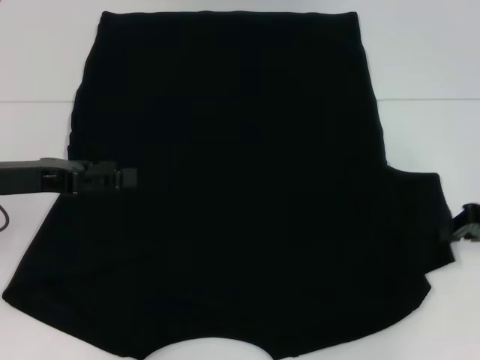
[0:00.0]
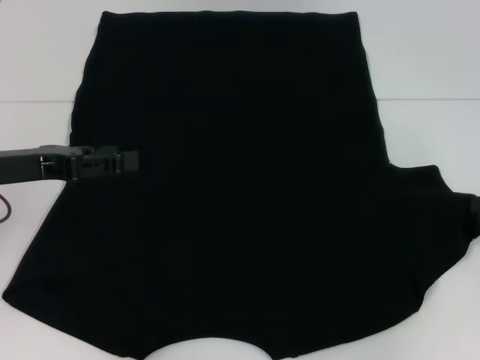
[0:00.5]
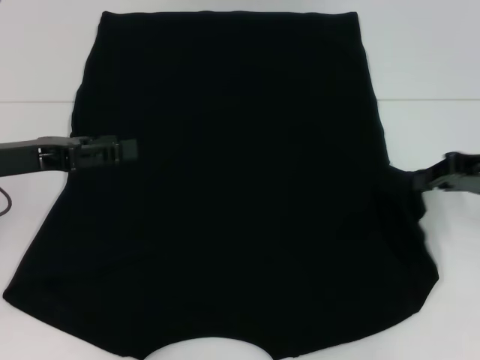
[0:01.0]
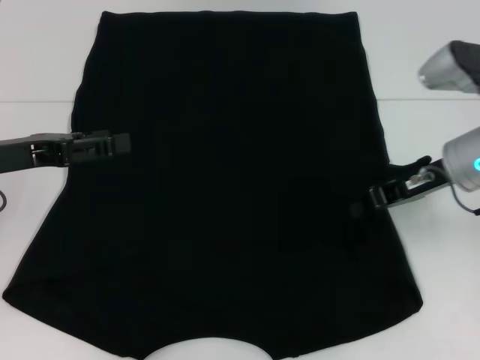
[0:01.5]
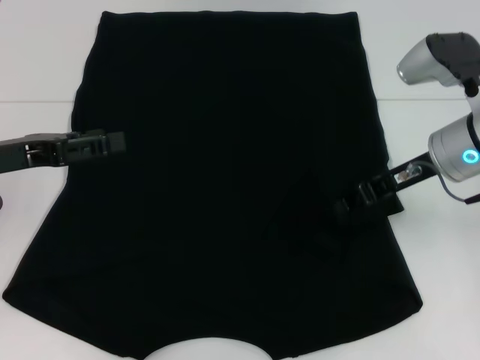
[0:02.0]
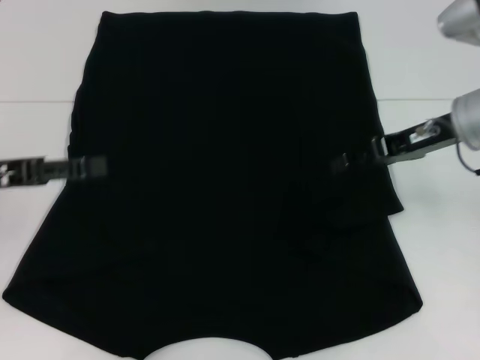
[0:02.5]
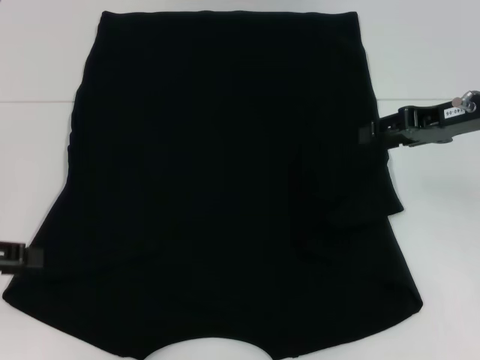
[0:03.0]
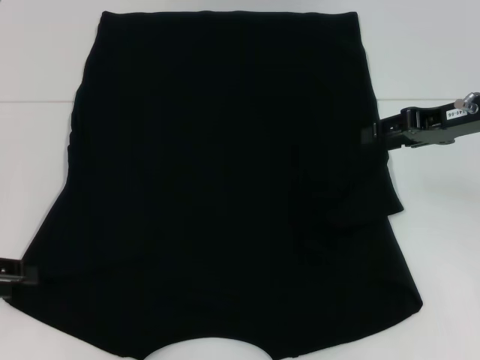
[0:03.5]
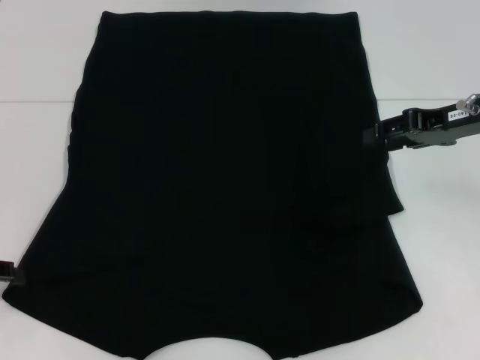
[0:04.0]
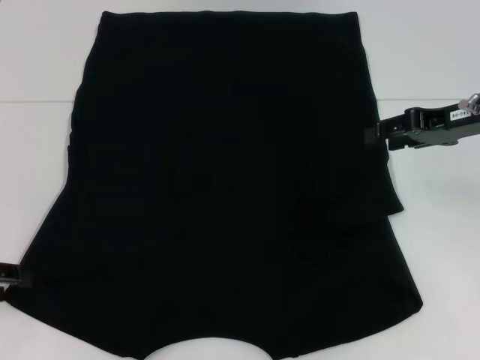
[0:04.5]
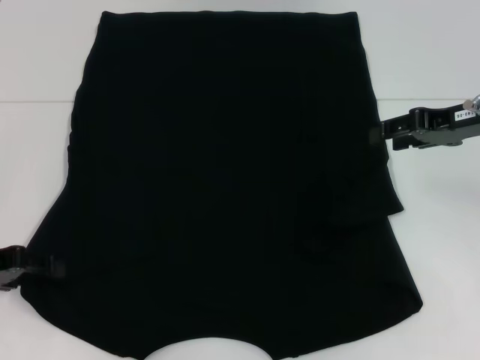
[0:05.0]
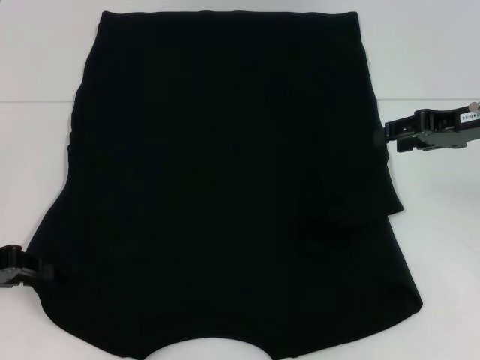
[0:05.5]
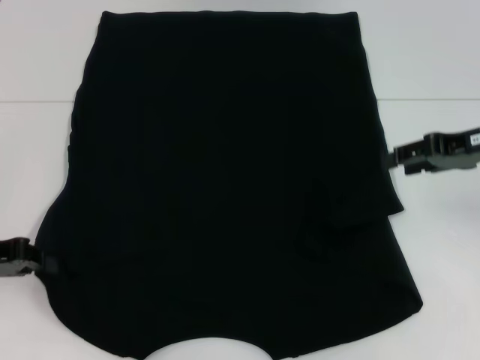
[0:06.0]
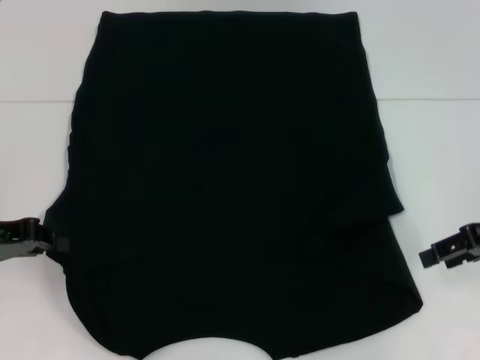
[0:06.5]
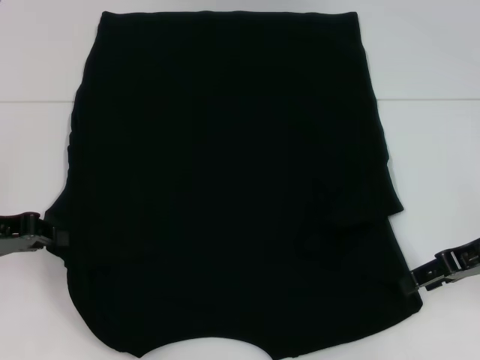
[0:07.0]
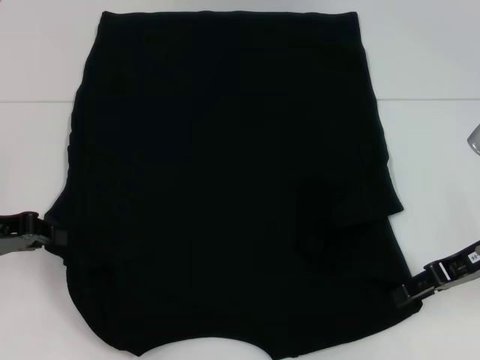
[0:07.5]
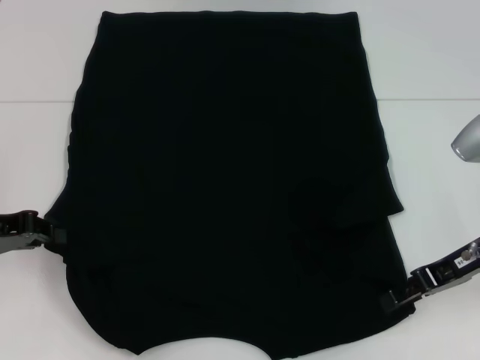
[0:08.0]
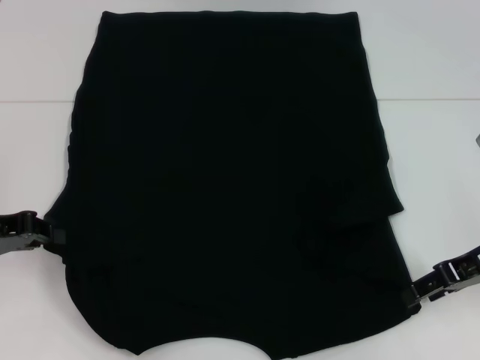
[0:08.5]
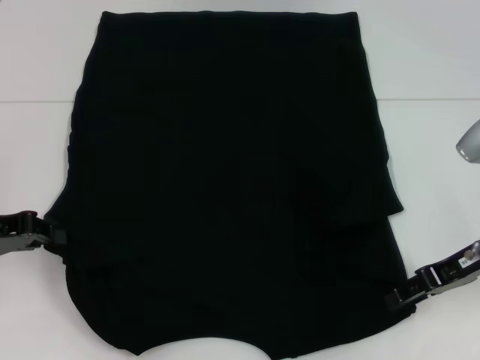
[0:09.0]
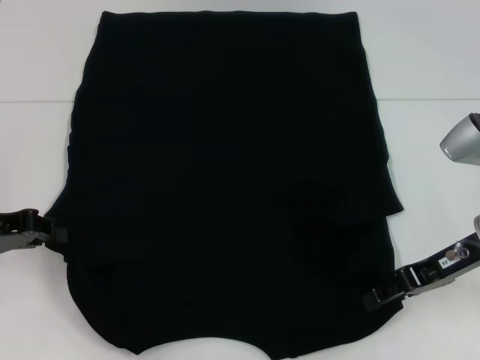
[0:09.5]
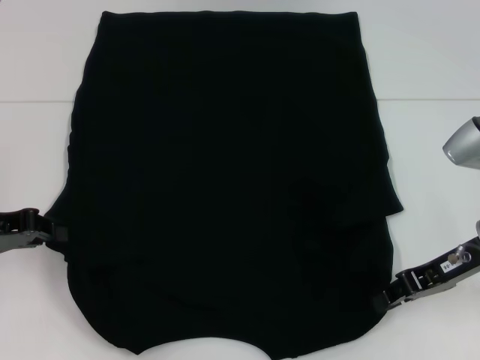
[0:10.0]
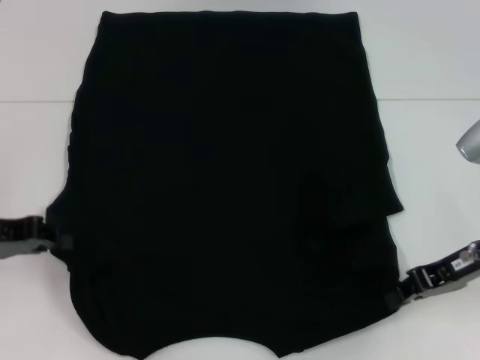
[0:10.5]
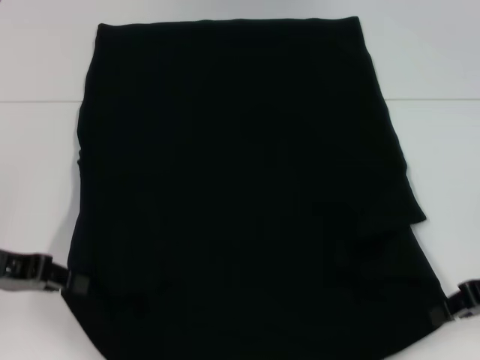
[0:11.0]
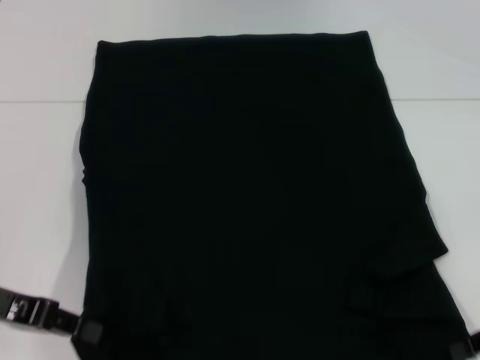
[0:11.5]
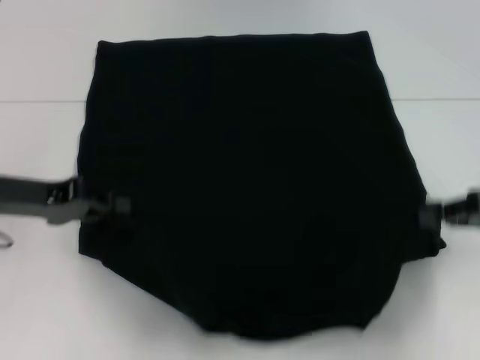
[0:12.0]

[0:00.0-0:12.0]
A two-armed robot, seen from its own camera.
Step, 0:00.0 to 0:02.0: Fold the bottom right sleeve with your right hand.
Step, 0:02.5 to 0:05.5: Grab the bottom left corner with your left hand.
Step, 0:06.0 to 0:10.5: Grab the bottom right corner with your right hand.
0:00.0 to 0:02.0: The right gripper travels to the left by roughly 10 cm.
0:02.0 to 0:04.0: The right gripper is displaced to the right by some 5 cm, and opens its fingers. The left gripper travels to the left and backward by some 10 cm.
0:04.0 to 0:06.0: The left gripper closes its fingers.
0:06.0 to 0:08.0: The right gripper moves downward and backward, roughly 10 cm.
0:08.0 to 0:10.0: The grippers make only small movements.
0:10.0 to 0:12.0: The right gripper shifts roughly 10 cm to the right, and closes its fingers. Meanwhile the left gripper moves about 5 cm.

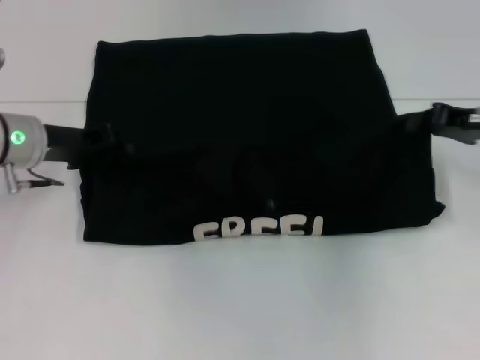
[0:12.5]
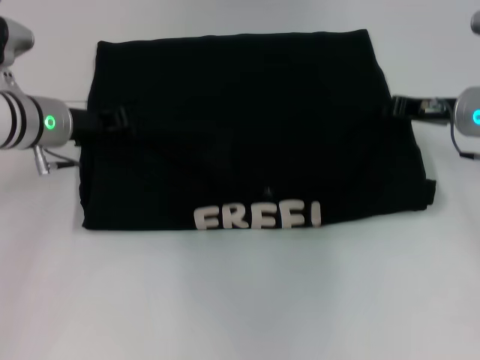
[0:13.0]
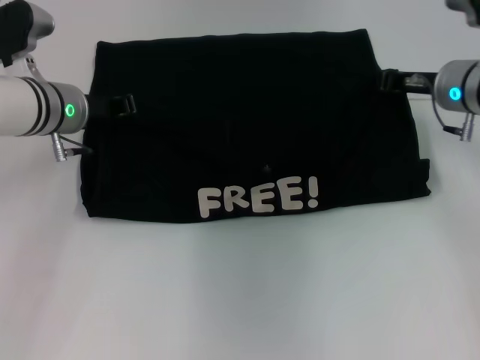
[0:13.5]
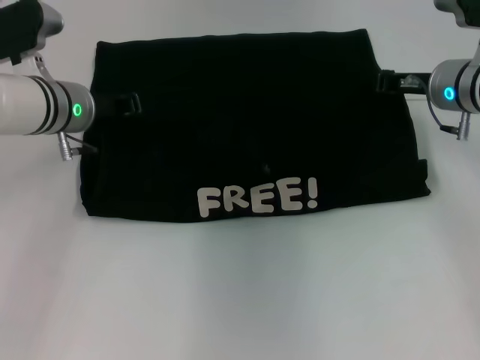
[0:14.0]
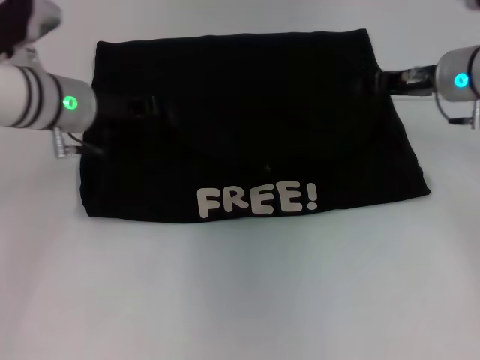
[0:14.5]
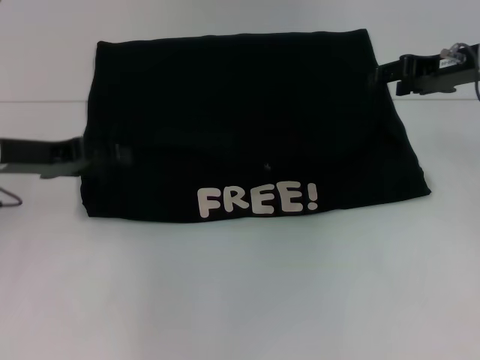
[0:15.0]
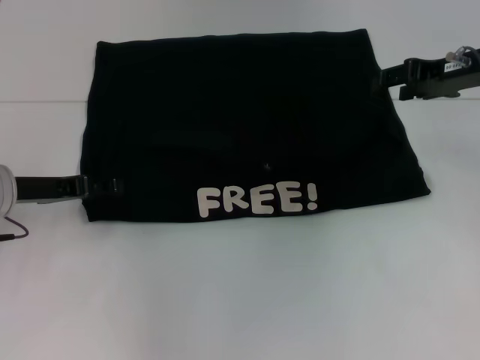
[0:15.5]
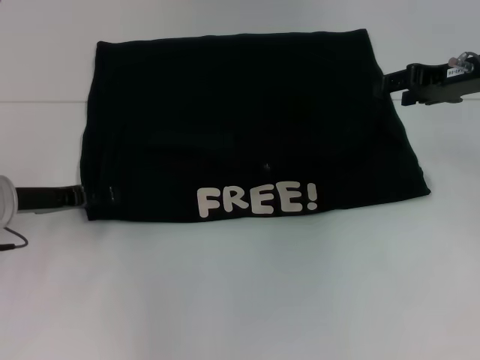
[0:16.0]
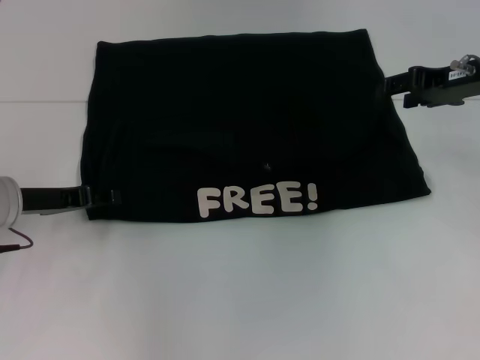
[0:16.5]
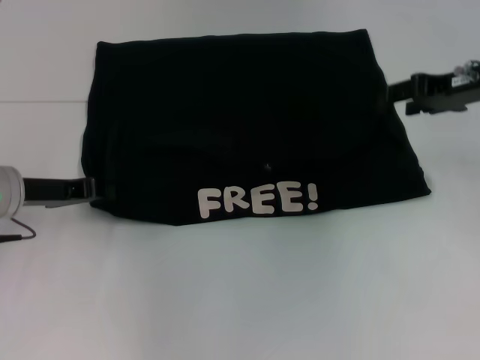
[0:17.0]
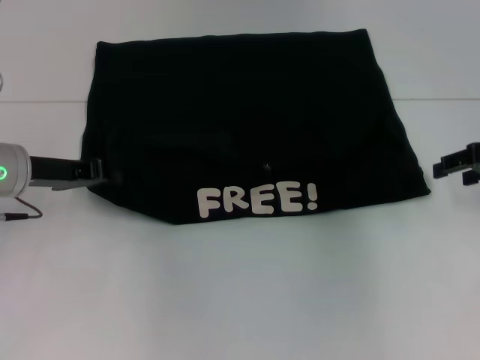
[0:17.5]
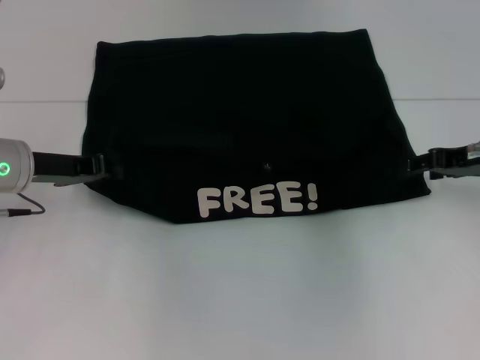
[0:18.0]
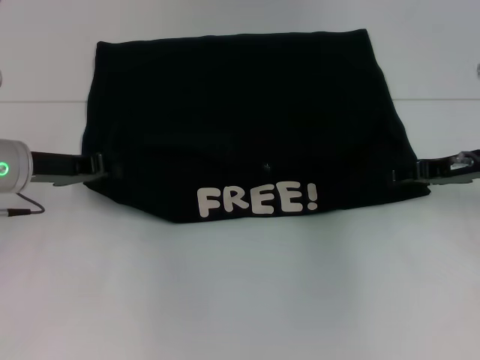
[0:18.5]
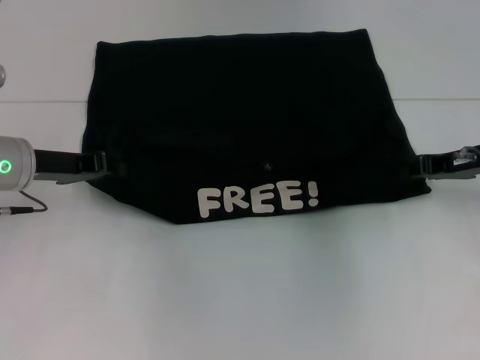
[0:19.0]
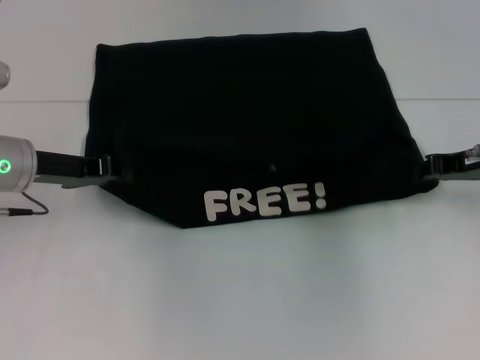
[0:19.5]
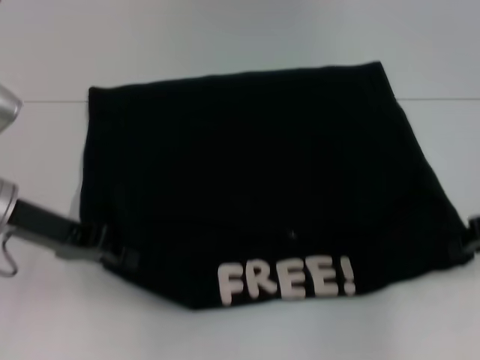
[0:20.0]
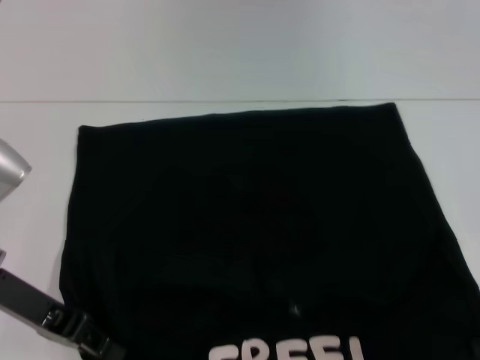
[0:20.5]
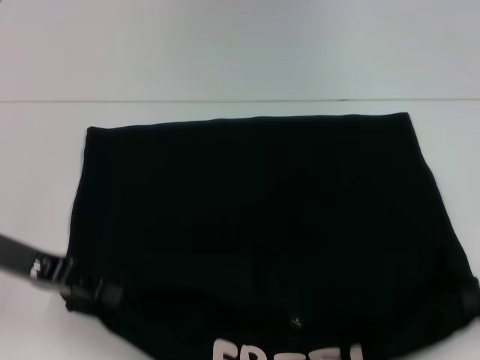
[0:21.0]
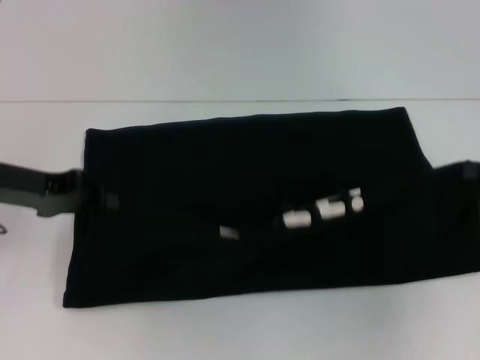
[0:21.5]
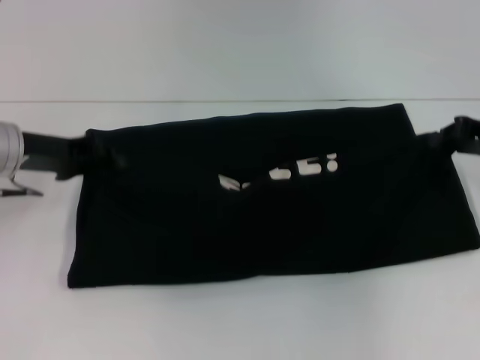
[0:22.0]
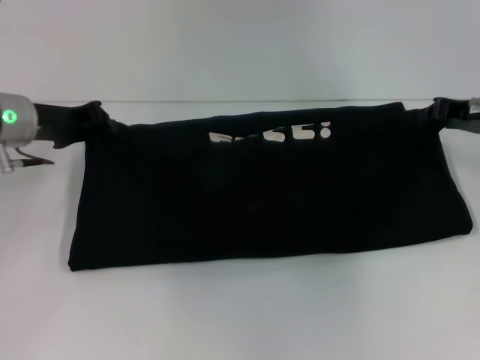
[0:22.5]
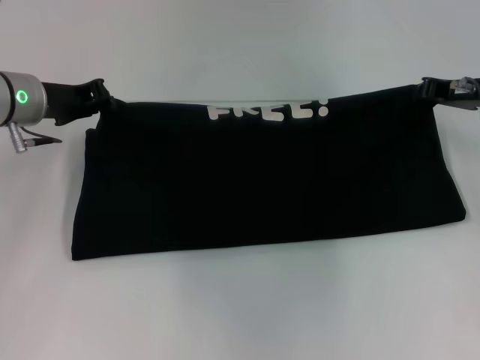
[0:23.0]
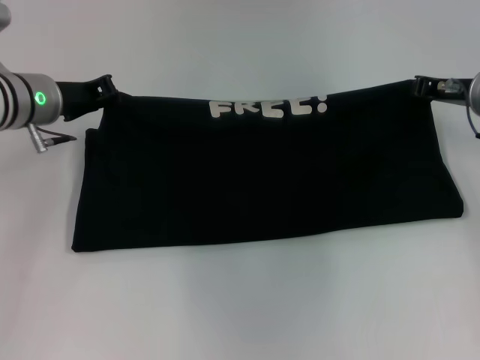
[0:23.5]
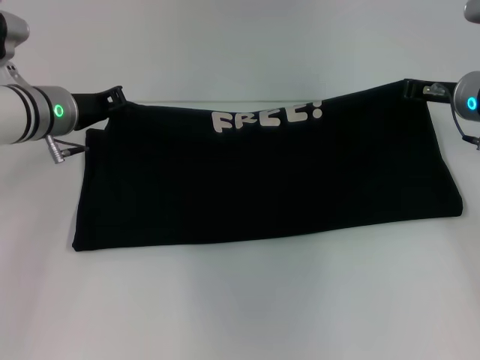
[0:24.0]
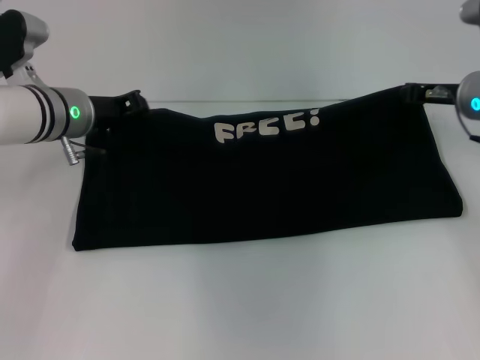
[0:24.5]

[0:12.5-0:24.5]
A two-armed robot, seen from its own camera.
Step, 0:12.5 to 0:14.5: Fold the clothes with your left hand.
Step, 0:12.5 to 0:14.5: Fold the clothes with your right hand.
Step, 0:15.0 to 0:20.5: Pull the clothes with your left hand.
Step, 0:15.0 to 0:20.5: Pull the clothes with your right hand.
0:12.5 to 0:14.5: The left gripper moves to the right, about 5 cm. The right gripper shifts roughly 10 cm to the left and forward.
0:14.5 to 0:16.5: The left gripper shifts some 15 cm to the left, backward and downward, and opens, while the right gripper moves about 5 cm, and opens its fingers.
0:16.5 to 0:18.5: The right gripper goes some 10 cm downward; the left gripper closes up.
0:18.5 to 0:20.5: The right gripper goes about 15 cm backward and to the right, and closes its fingers, while the left gripper moves backward, roughly 10 cm.
0:20.5 to 0:22.5: Both grippers move forward, about 15 cm.
0:22.5 to 0:24.5: The left gripper travels to the right by approximately 5 cm. The right gripper changes place by roughly 5 cm.

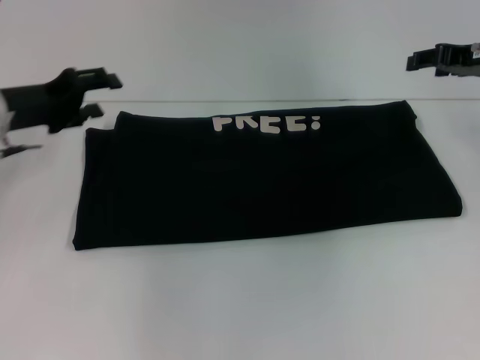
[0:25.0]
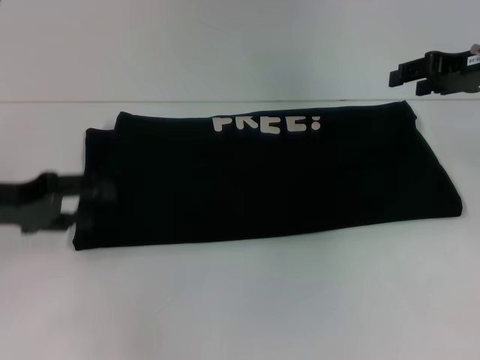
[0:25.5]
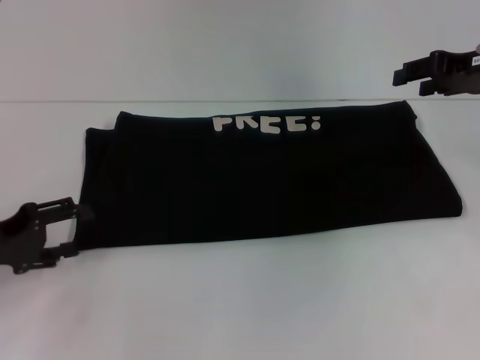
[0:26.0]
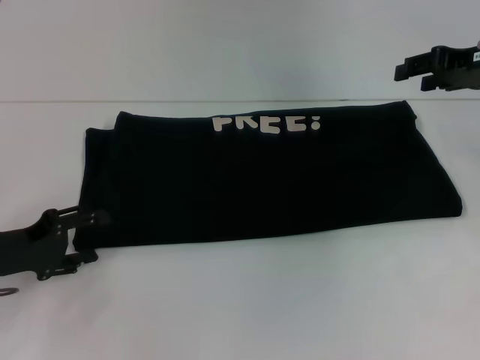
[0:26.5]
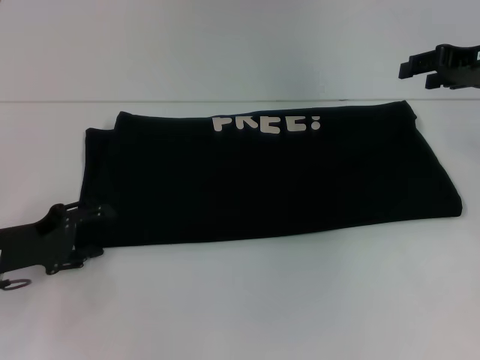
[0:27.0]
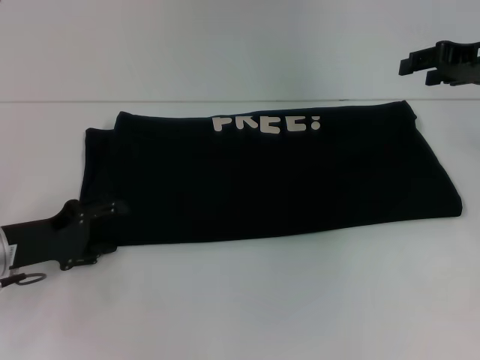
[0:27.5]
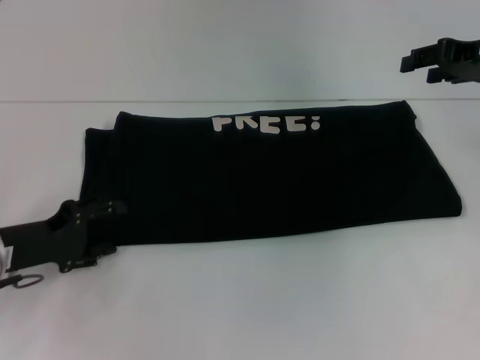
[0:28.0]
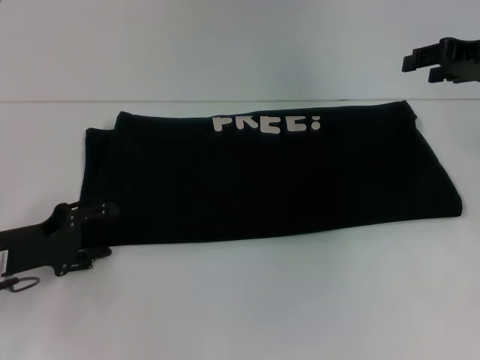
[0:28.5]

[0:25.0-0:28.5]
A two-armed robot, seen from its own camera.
0:25.0 to 0:27.0: The left gripper is displaced backward and downward by roughly 15 cm.
0:27.0 to 0:28.5: The grippers move only a little.
